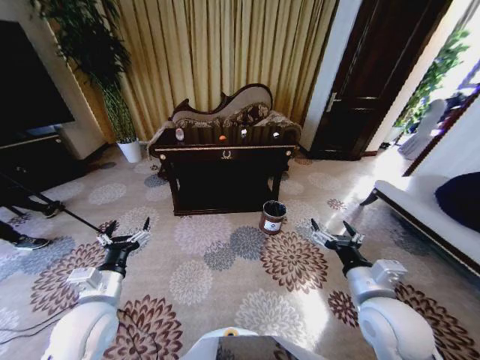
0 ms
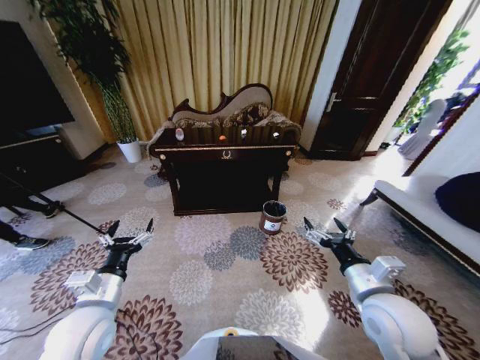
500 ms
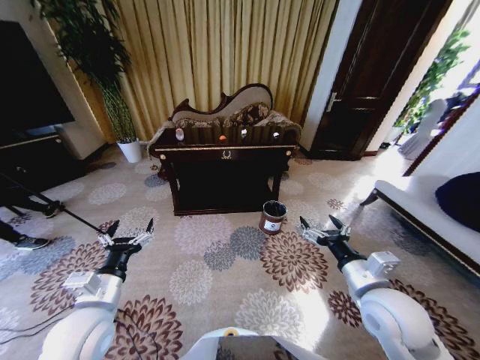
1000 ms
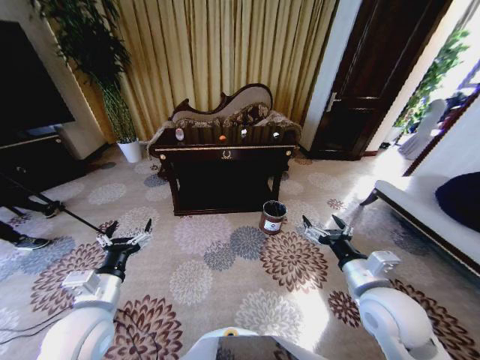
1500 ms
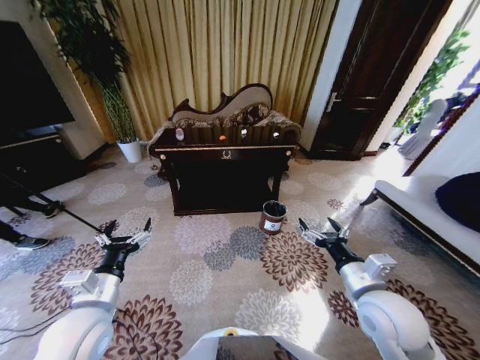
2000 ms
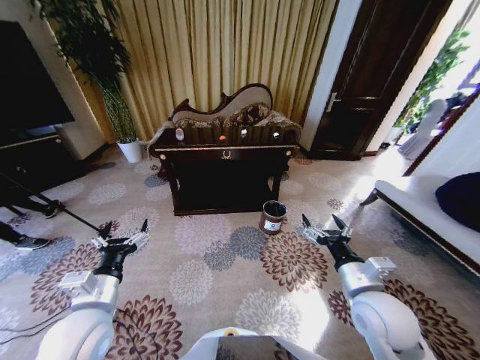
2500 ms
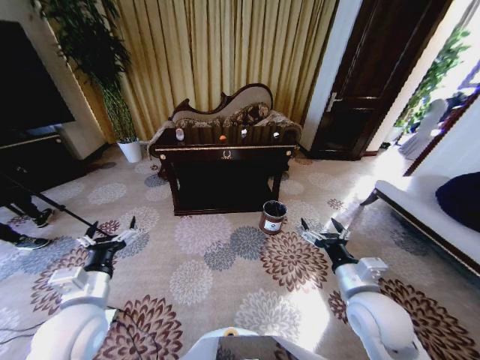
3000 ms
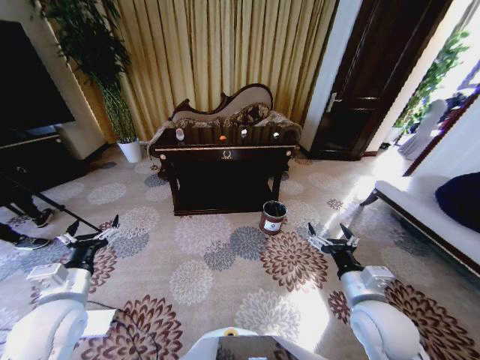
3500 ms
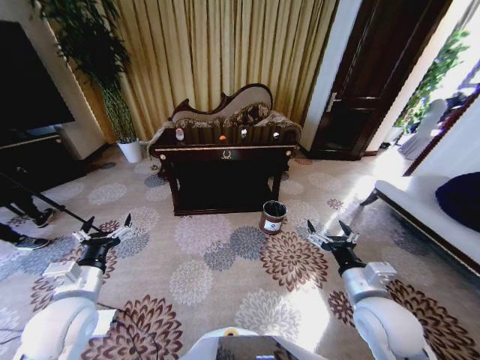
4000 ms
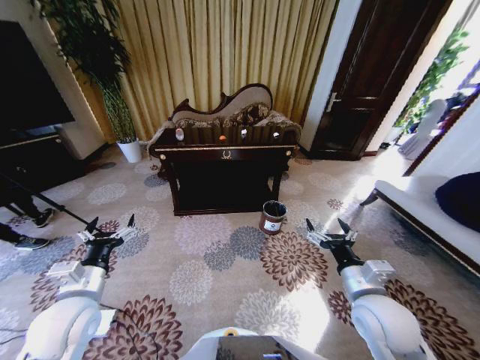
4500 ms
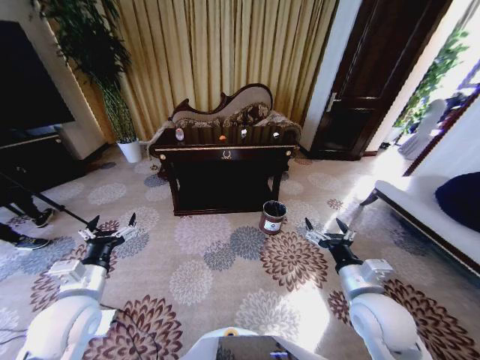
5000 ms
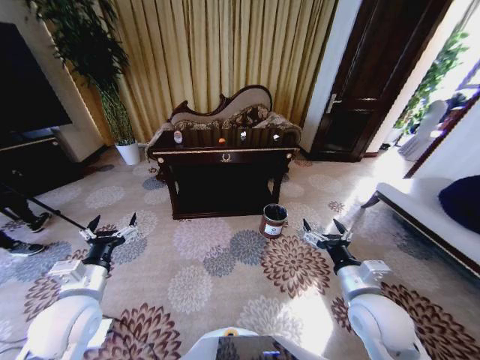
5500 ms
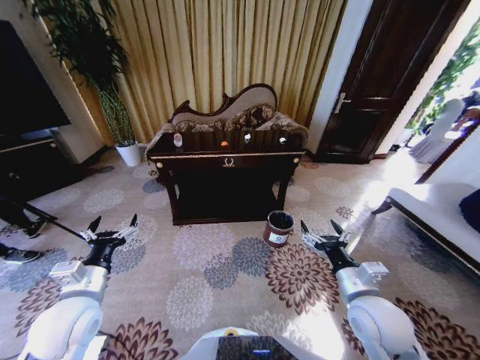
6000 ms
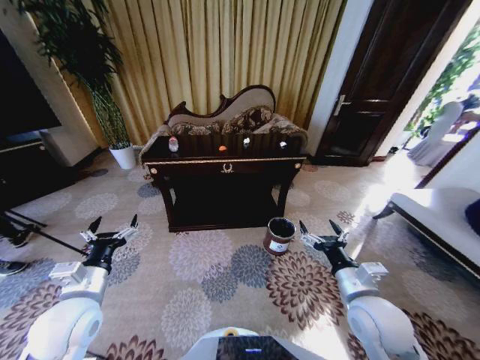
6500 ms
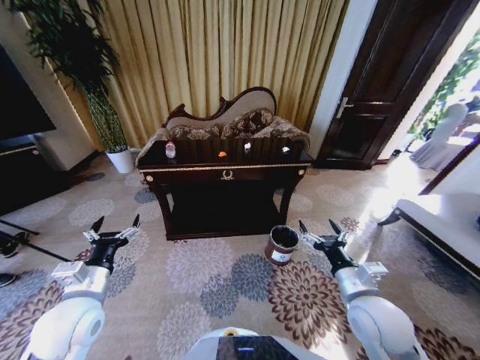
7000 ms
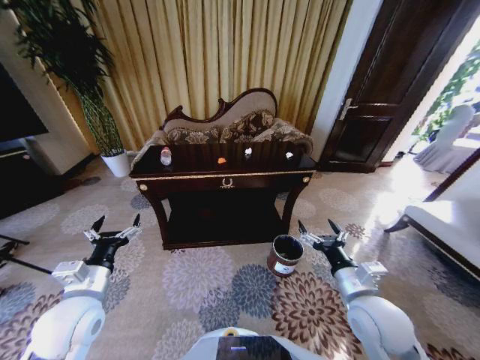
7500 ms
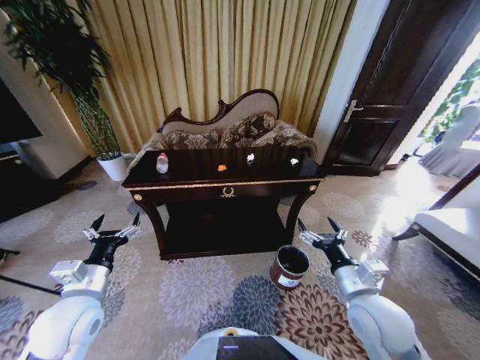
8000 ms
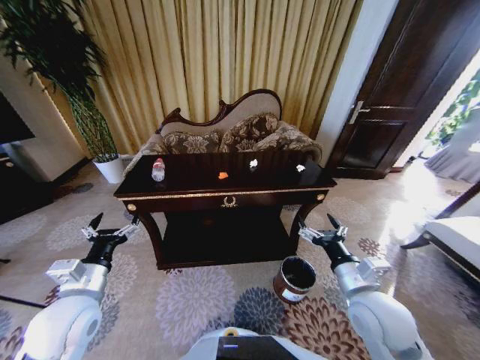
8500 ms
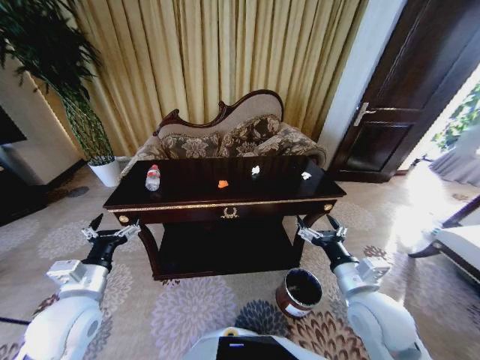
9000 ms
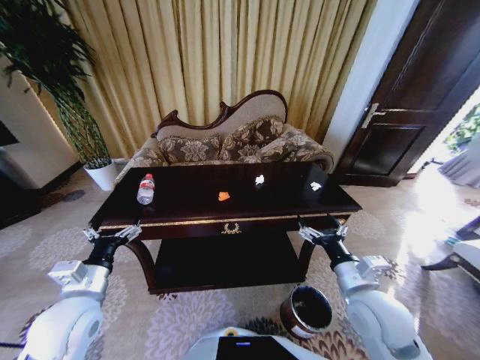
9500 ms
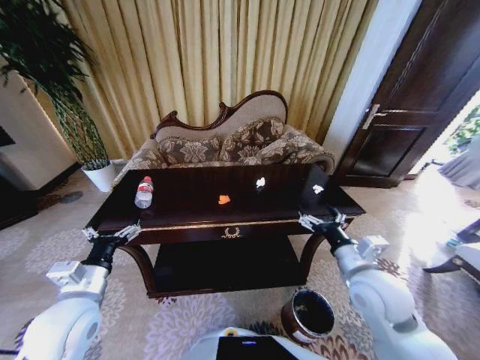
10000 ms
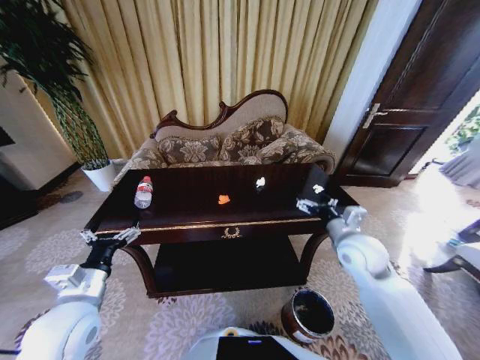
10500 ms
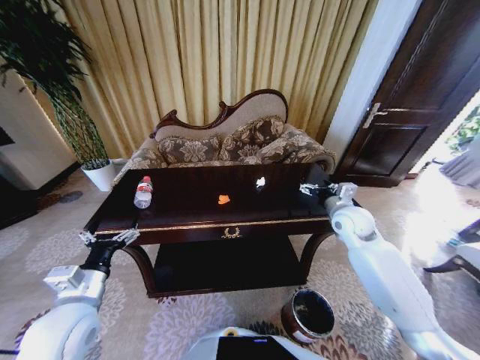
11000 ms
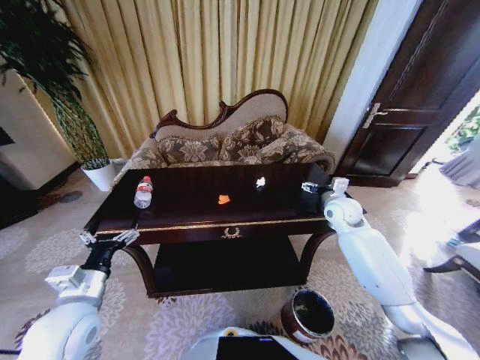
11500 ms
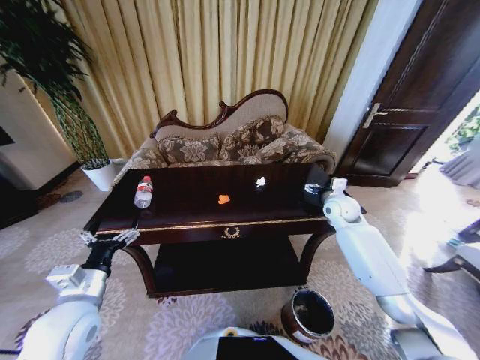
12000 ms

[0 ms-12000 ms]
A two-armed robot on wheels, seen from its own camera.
Task of the whole recording: Move to the front of the table and place the trash on the table into the trash bin.
10000 ms to 12000 ms: The right gripper travels forward by about 25 cm.

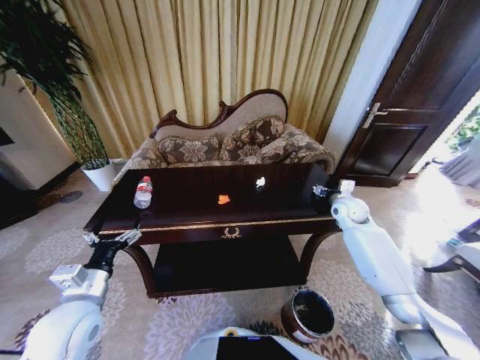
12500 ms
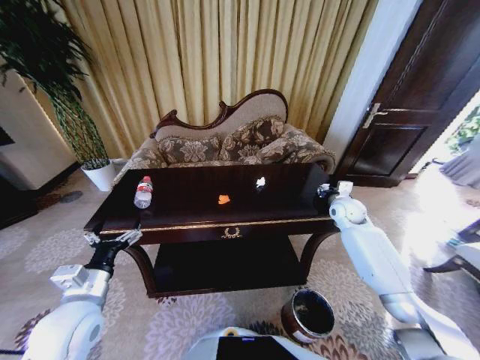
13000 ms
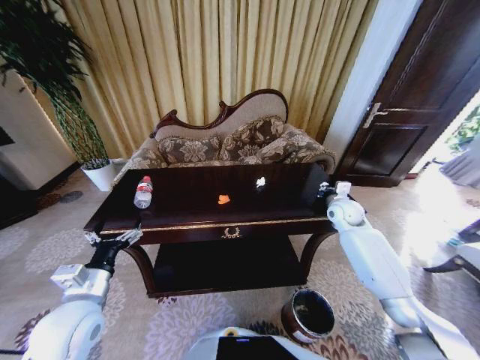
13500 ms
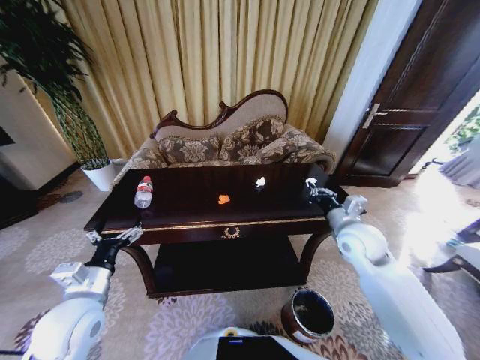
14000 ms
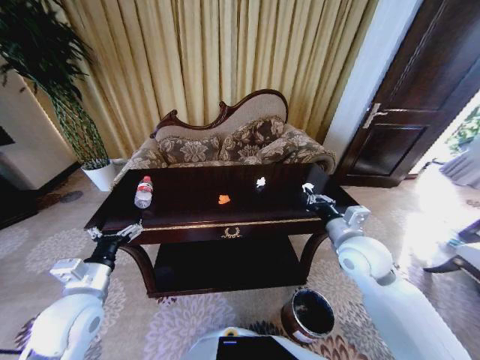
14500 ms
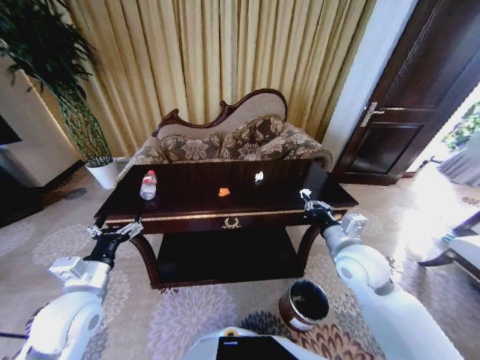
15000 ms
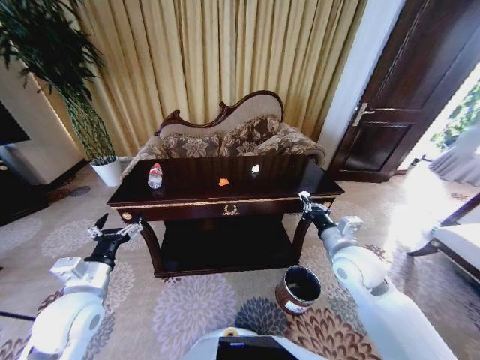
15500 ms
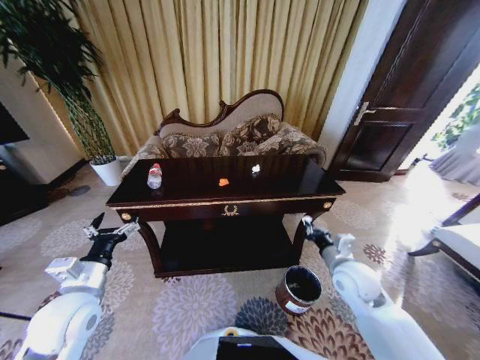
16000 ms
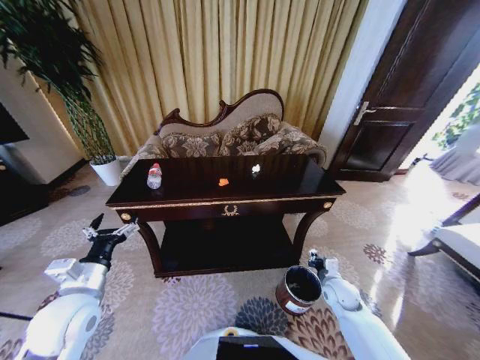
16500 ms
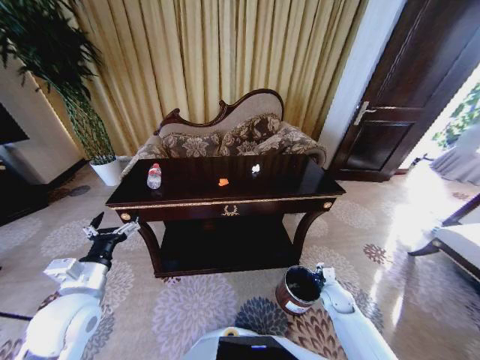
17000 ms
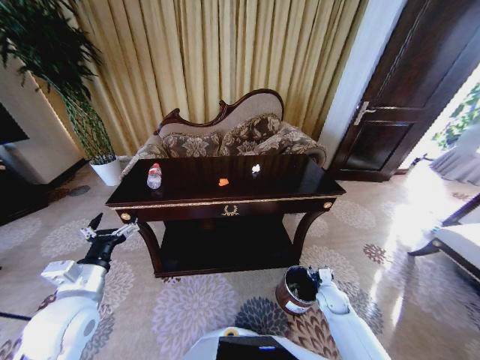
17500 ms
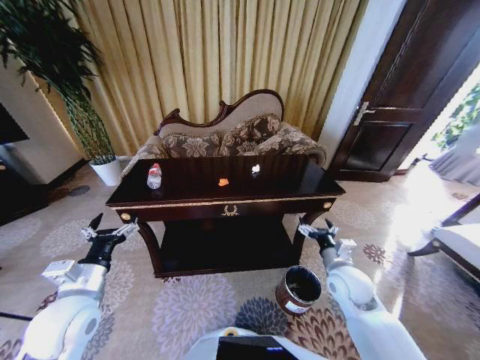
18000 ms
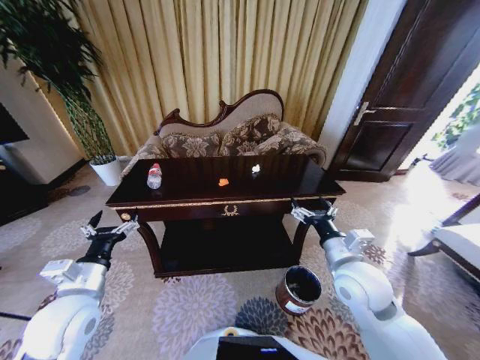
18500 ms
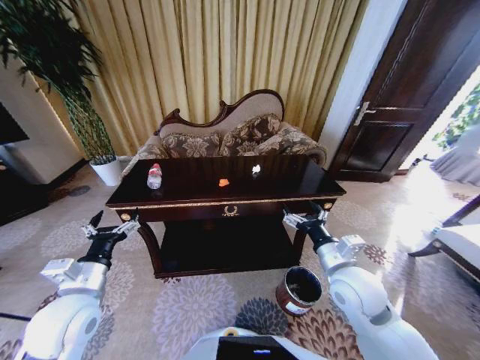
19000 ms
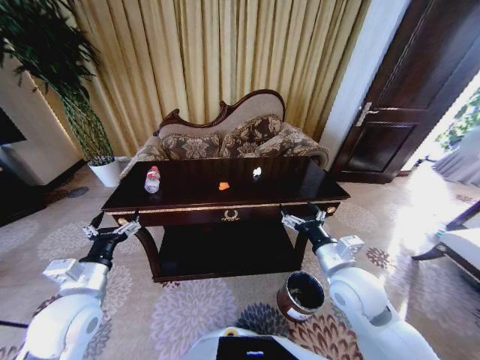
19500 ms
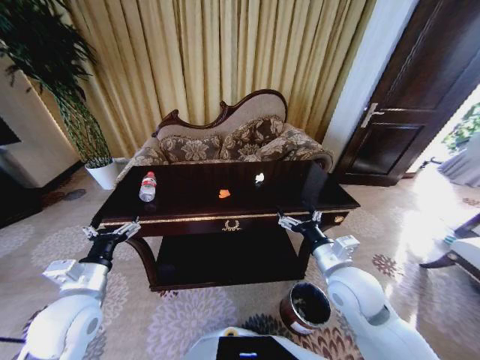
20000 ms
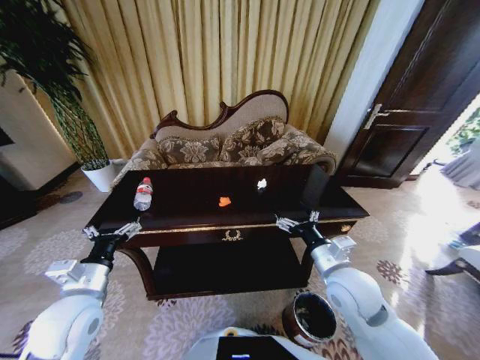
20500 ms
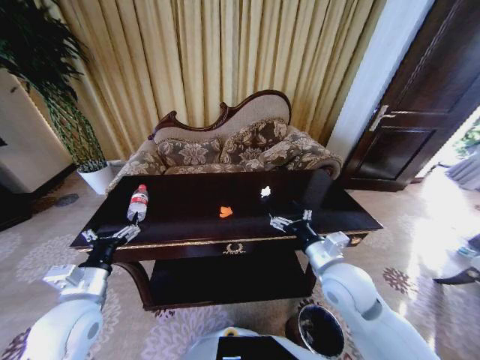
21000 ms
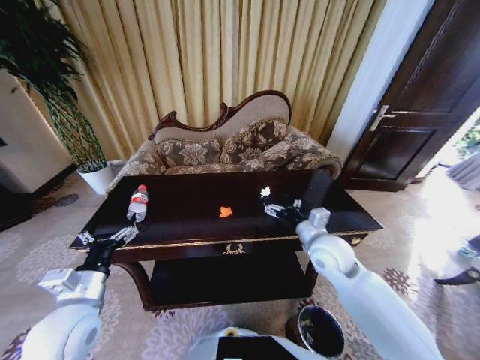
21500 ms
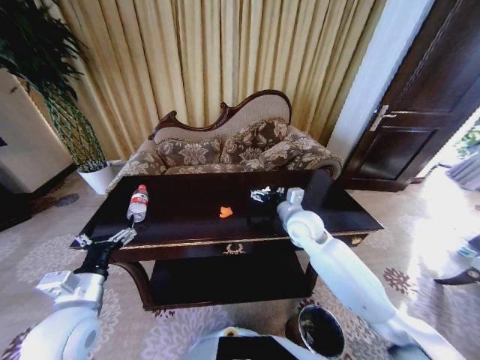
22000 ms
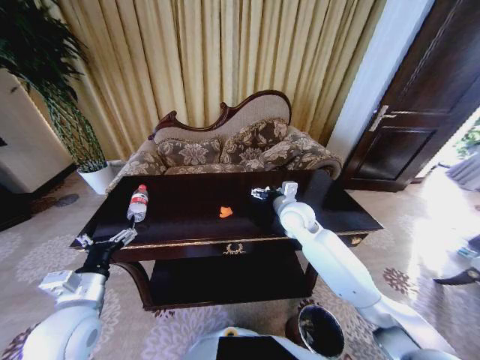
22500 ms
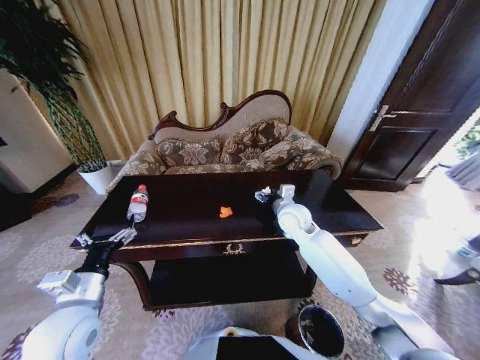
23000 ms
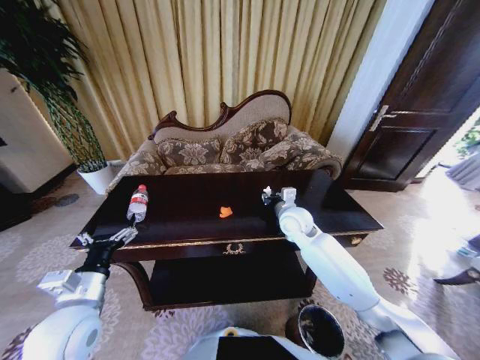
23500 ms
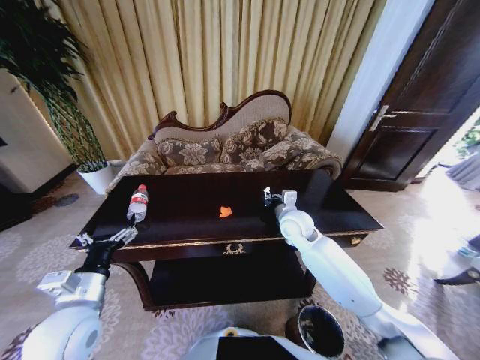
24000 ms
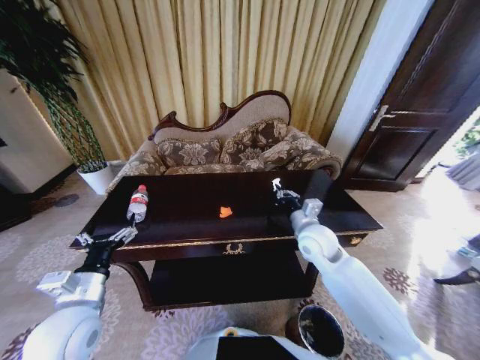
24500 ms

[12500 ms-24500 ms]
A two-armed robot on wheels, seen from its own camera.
Task of the whole recording: Move to the front of the table and place the trash on the table into the trash bin.
12500 ms to 14500 ms: The right gripper shifts some 20 cm backward and to the left, and closes its fingers.
14500 ms to 16500 ms: The right gripper is displaced downward by roughly 25 cm.
16500 ms to 18500 ms: The right gripper moves upward, roughly 25 cm, and opens its fingers.
20500 ms to 22500 ms: The right gripper is displaced forward by some 20 cm.
22500 ms to 24500 ms: The right gripper is displaced backward by approximately 5 cm, and closes.

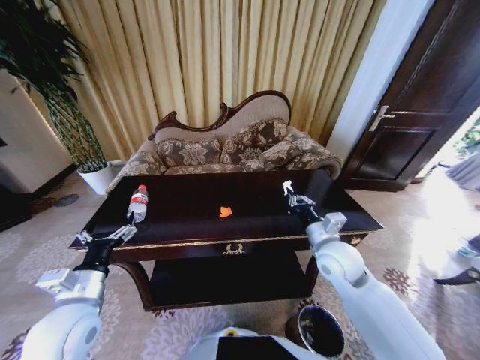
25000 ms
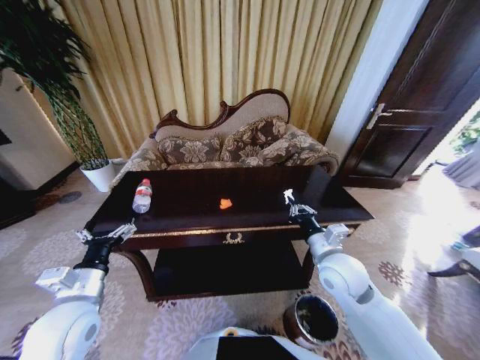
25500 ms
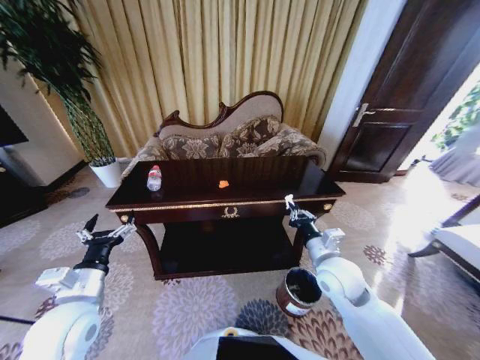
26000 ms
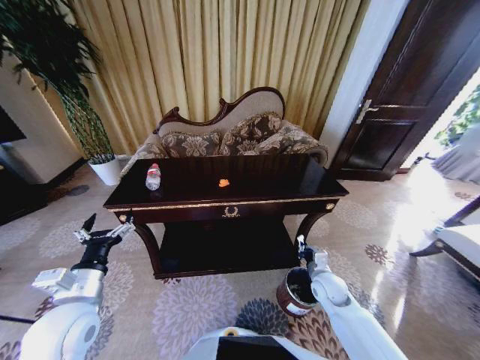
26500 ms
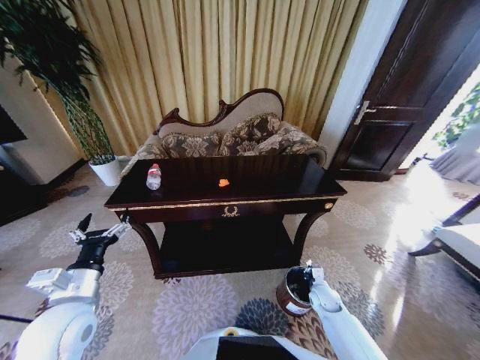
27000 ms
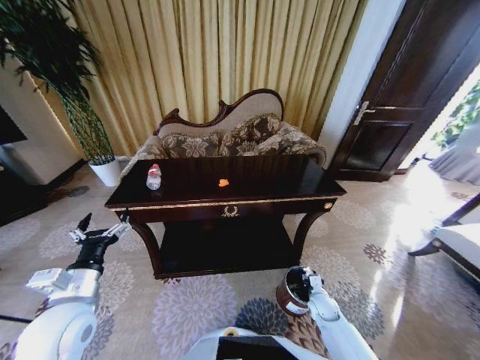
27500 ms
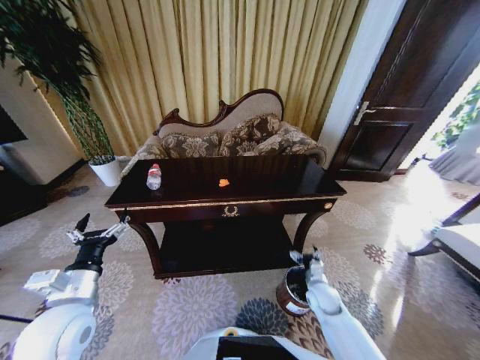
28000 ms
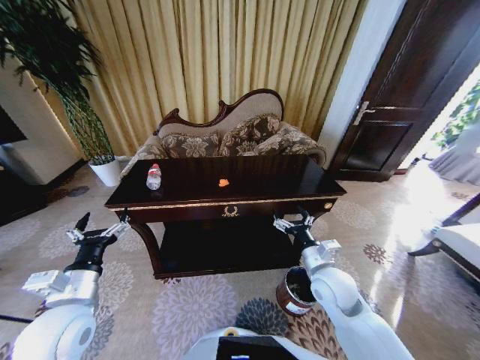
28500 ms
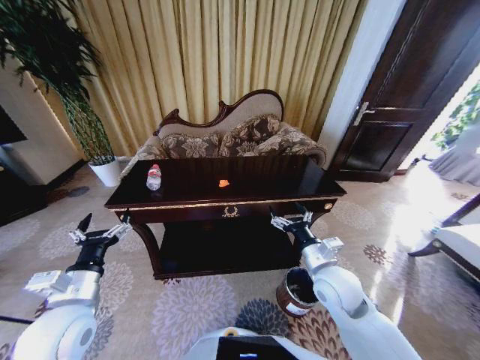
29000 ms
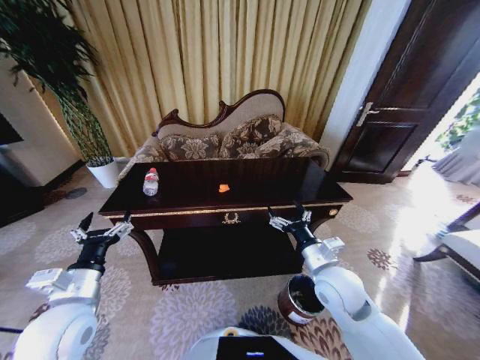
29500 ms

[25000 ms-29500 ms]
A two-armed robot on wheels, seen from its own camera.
Task of the whole recording: Move to the front of the table and place the trash on the table into the trash bin.
25000 ms to 27000 ms: The right gripper moves downward, about 30 cm.
27000 ms to 29500 ms: The right gripper goes roughly 25 cm upward, and opens.
